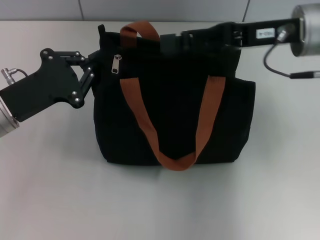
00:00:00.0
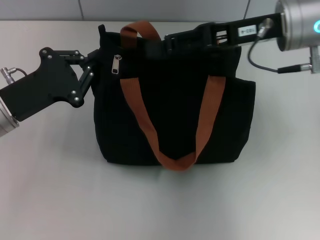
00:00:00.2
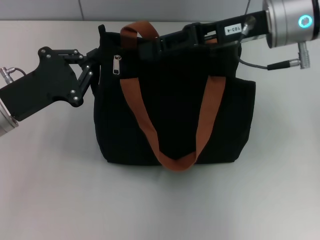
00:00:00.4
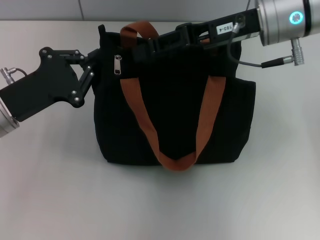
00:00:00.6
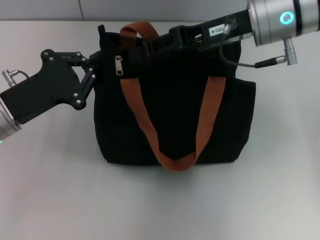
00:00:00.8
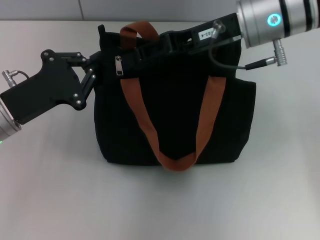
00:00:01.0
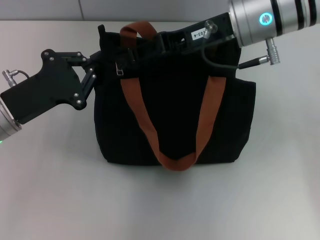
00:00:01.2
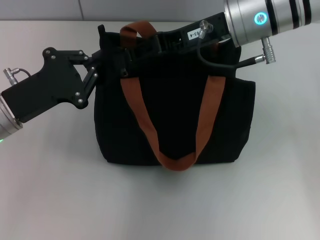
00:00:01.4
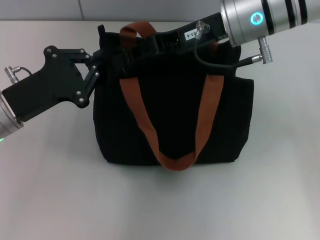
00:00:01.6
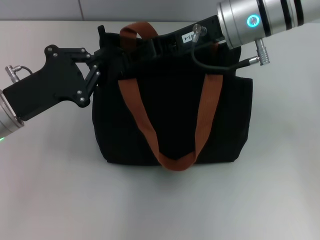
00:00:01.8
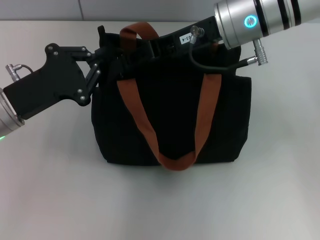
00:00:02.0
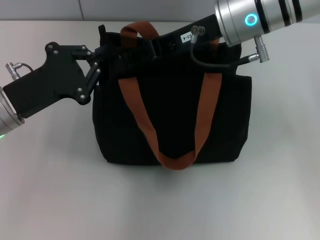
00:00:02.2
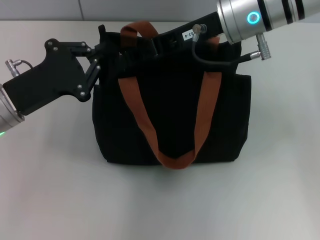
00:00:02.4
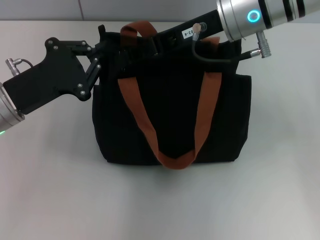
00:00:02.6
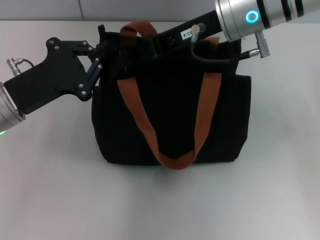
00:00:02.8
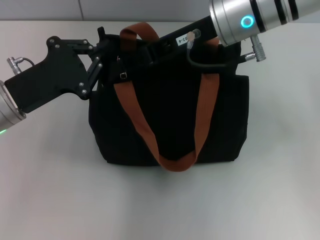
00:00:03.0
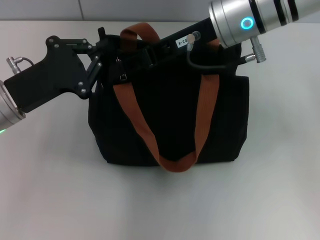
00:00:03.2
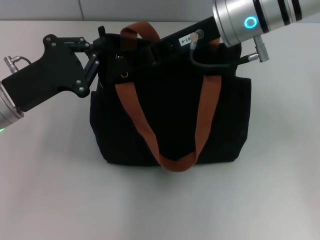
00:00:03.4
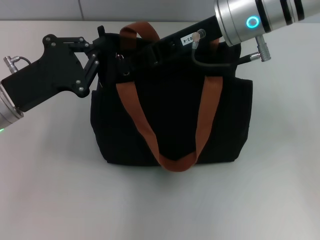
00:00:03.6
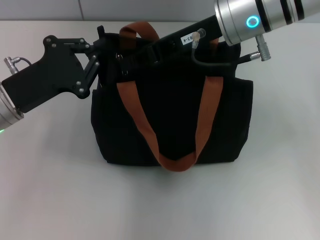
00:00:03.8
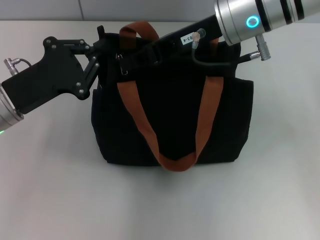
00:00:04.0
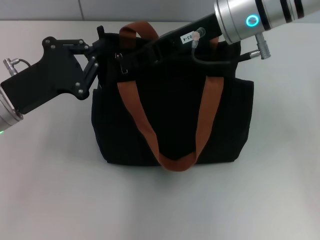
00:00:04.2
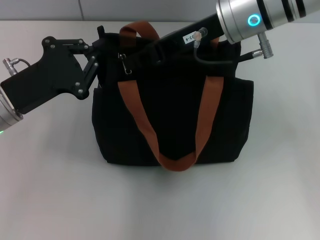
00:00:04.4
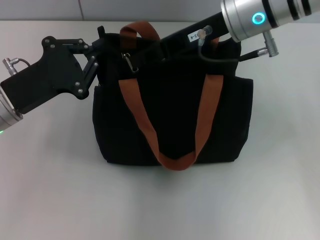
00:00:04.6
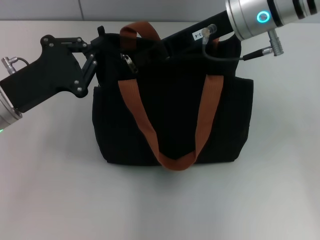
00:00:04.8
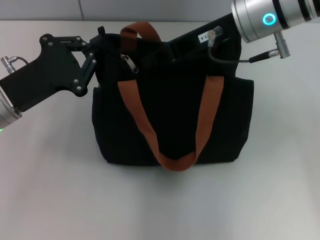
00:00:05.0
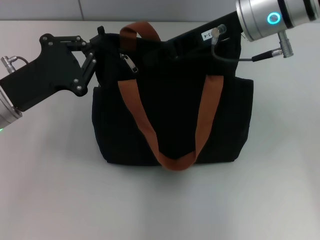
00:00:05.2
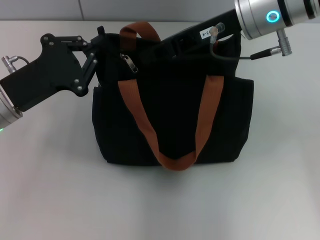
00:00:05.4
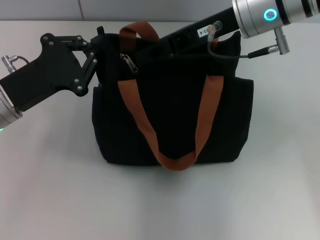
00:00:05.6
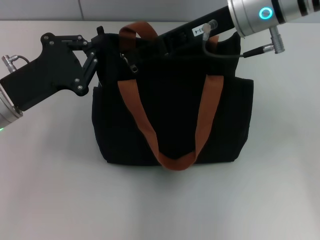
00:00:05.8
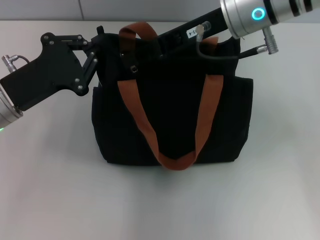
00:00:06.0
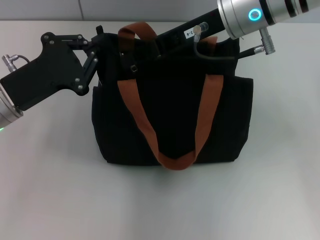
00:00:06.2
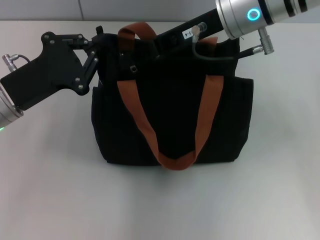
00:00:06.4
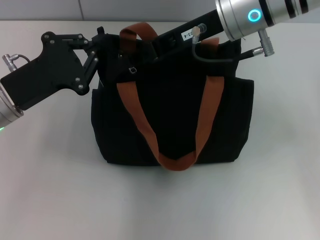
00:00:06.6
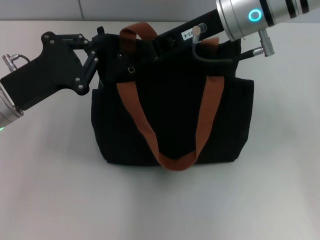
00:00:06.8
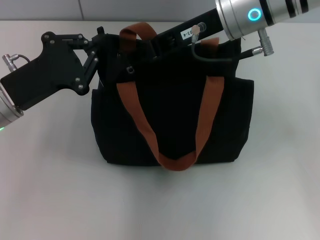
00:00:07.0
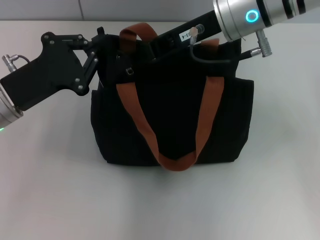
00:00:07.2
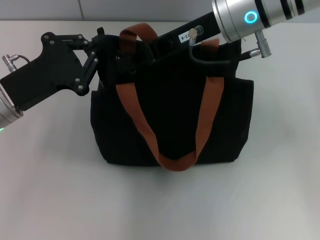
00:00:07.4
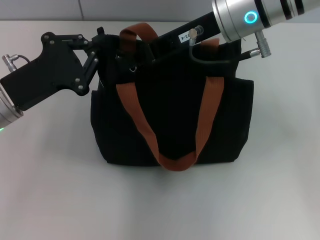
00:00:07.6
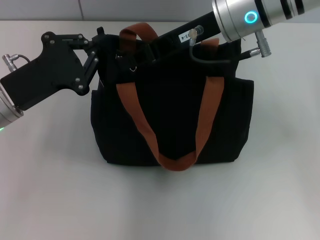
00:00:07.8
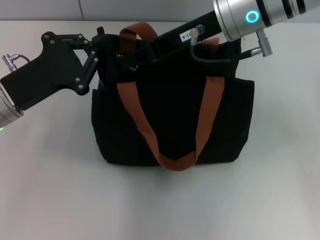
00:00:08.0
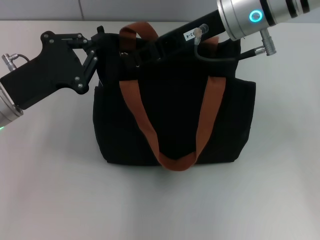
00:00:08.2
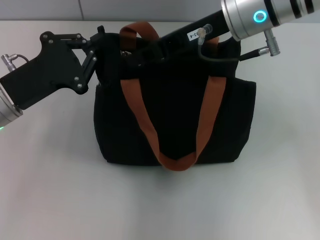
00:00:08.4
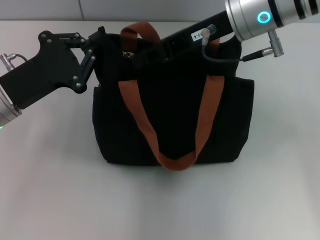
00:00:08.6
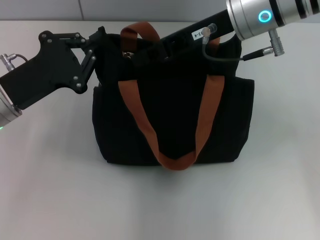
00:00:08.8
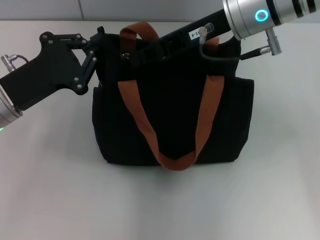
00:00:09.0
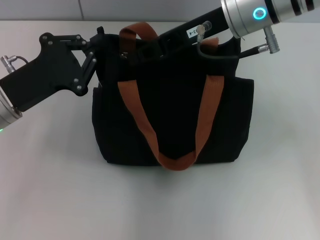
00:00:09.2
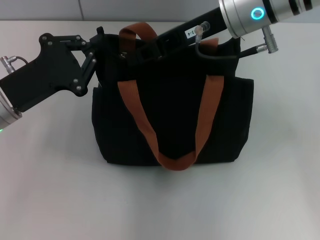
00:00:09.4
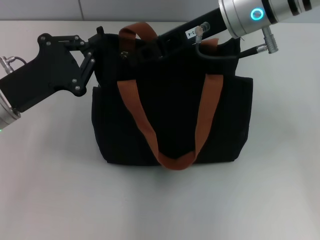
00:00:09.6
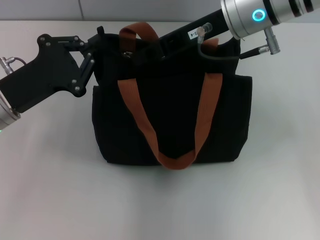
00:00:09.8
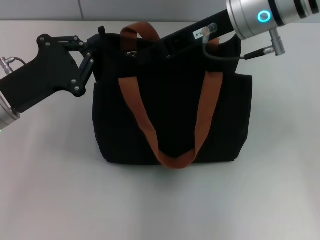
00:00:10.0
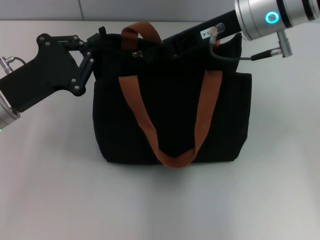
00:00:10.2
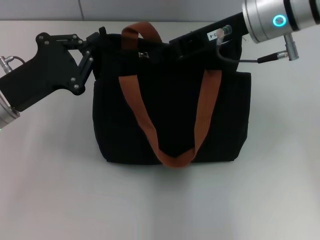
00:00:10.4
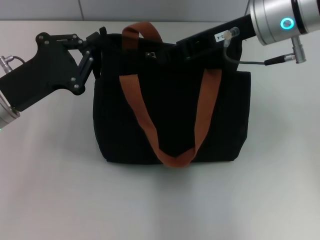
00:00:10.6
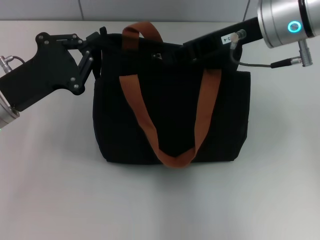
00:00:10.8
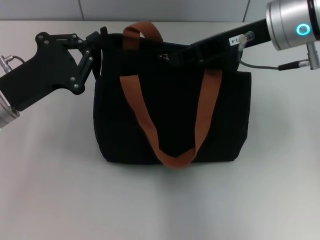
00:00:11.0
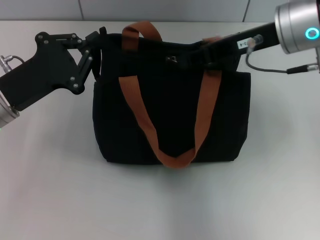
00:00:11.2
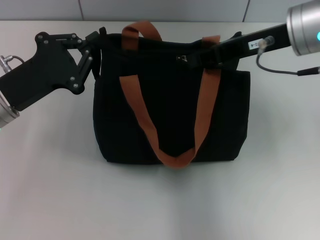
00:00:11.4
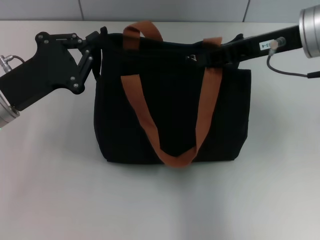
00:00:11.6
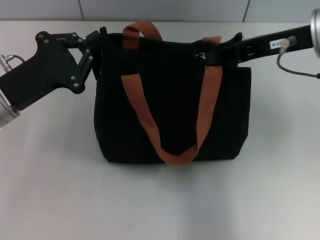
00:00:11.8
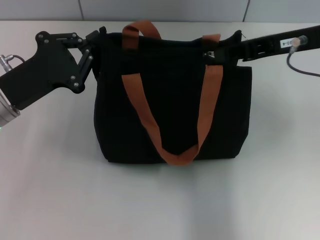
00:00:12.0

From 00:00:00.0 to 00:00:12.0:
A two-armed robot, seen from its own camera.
From 00:00:00.0 to 00:00:01.6: The right gripper goes about 10 cm to the left.
From 00:00:01.6 to 00:00:03.0: The grippers make only small movements.
From 00:00:03.0 to 00:00:04.4: The right gripper closes up.
From 00:00:04.4 to 00:00:06.0: The right gripper opens up.
From 00:00:06.0 to 00:00:07.6: Neither gripper changes place.
From 00:00:07.6 to 00:00:10.4: There are only small adjustments of the grippers.
From 00:00:10.4 to 00:00:12.0: The right gripper shifts roughly 10 cm to the right.

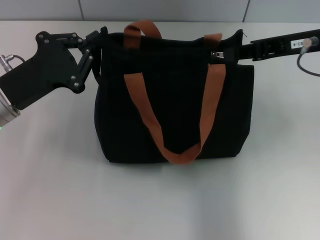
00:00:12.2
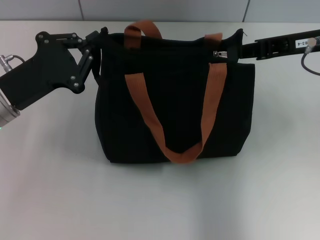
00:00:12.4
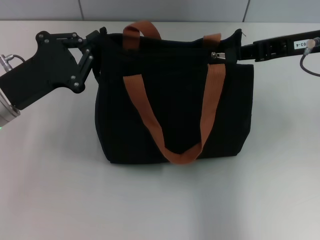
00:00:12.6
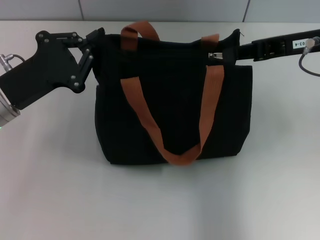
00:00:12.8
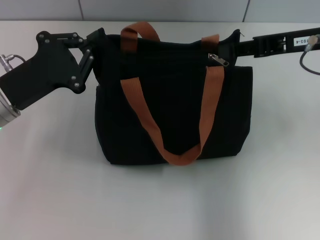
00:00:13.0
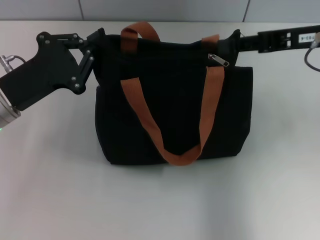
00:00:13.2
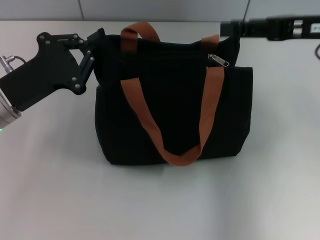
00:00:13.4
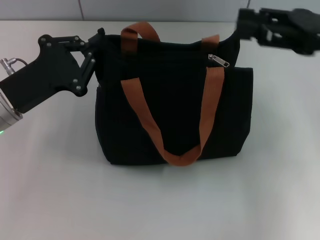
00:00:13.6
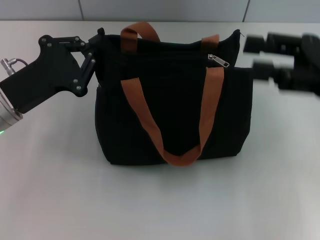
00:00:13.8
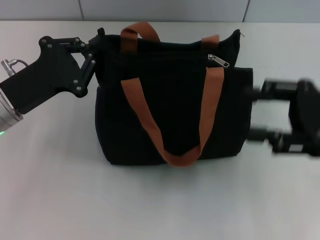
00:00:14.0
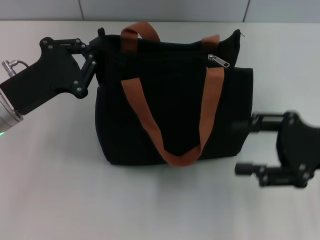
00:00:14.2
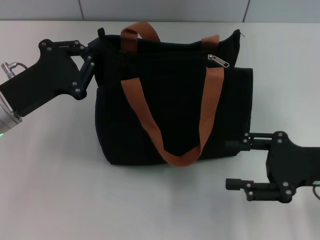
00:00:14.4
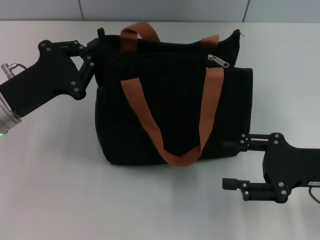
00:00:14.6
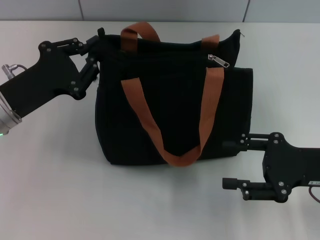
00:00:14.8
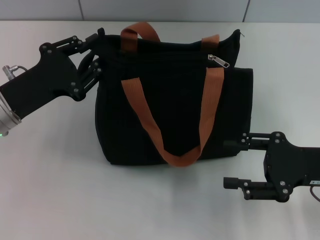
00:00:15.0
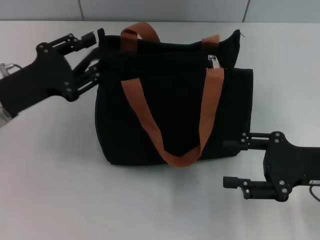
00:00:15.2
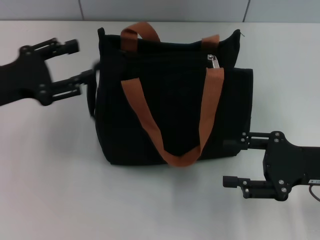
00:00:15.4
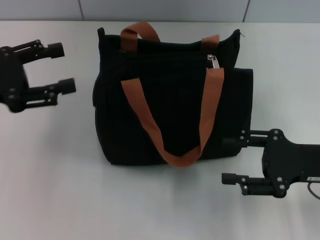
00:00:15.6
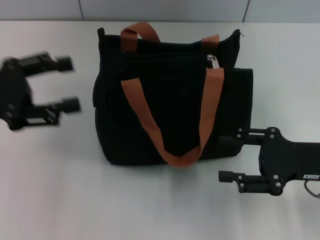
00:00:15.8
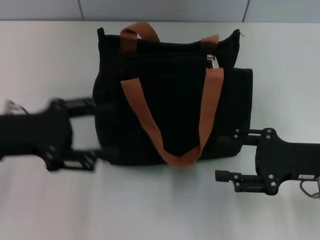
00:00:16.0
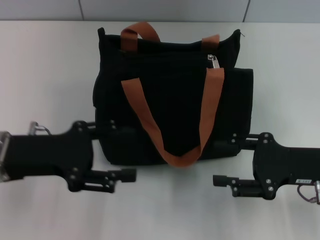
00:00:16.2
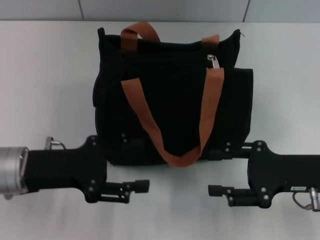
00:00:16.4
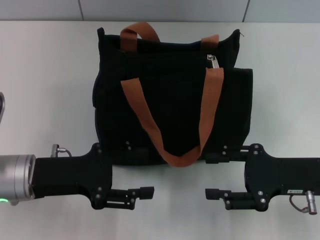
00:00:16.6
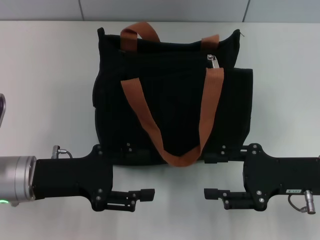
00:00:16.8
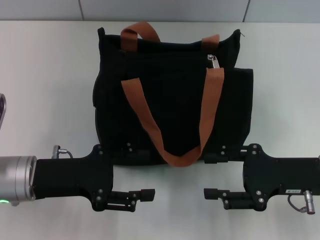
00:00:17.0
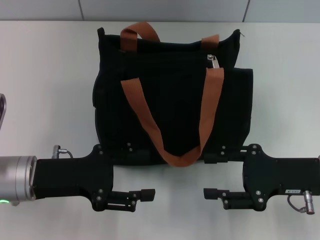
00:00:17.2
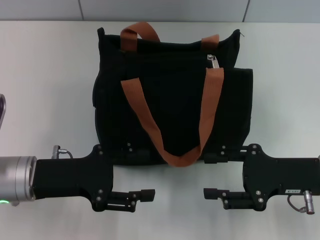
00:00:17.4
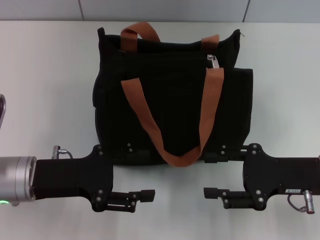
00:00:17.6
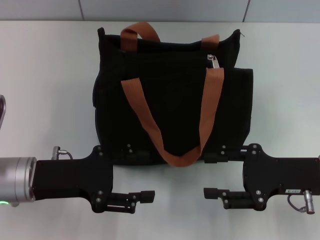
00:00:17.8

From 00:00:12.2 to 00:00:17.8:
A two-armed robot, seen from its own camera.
From 00:00:12.2 to 00:00:13.6: The right gripper opens its fingers.
From 00:00:13.6 to 00:00:15.0: The right gripper goes approximately 15 cm downward and backward.
From 00:00:15.0 to 00:00:16.4: The left gripper goes to the left and returns, approximately 5 cm each way, and opens up.
From 00:00:16.4 to 00:00:17.8: There are only small adjustments of the grippers.
